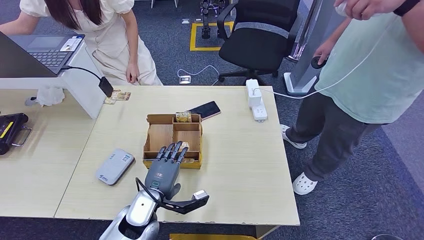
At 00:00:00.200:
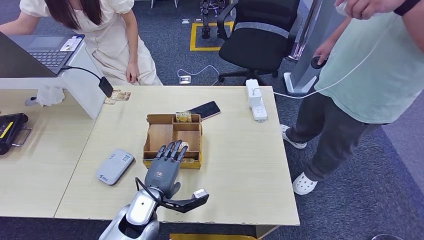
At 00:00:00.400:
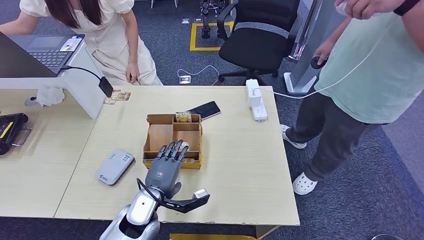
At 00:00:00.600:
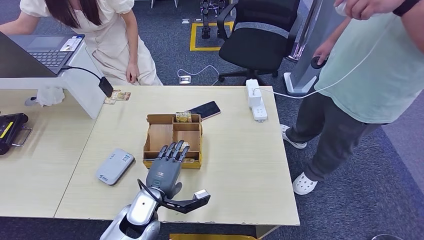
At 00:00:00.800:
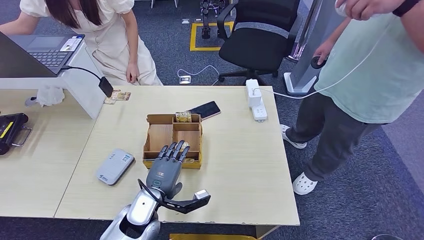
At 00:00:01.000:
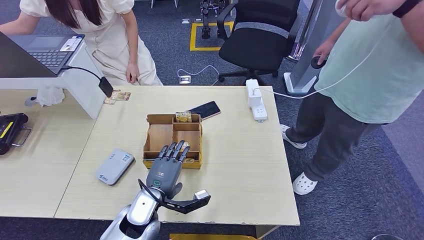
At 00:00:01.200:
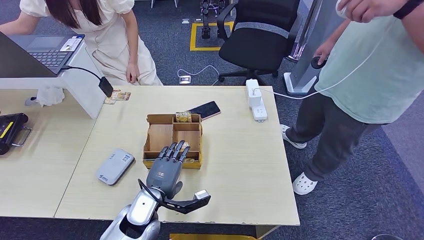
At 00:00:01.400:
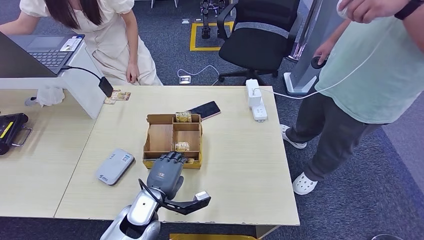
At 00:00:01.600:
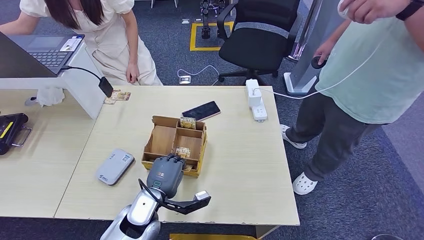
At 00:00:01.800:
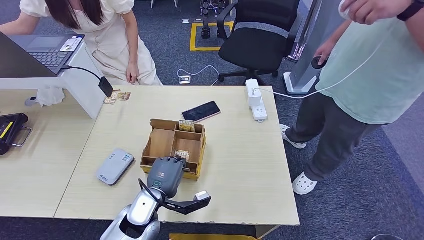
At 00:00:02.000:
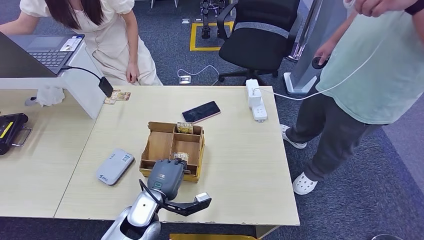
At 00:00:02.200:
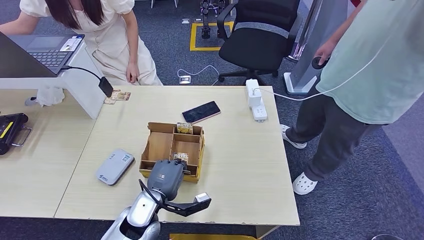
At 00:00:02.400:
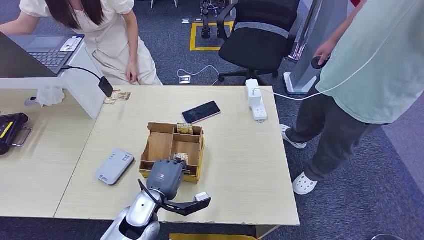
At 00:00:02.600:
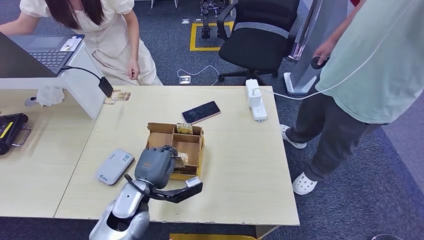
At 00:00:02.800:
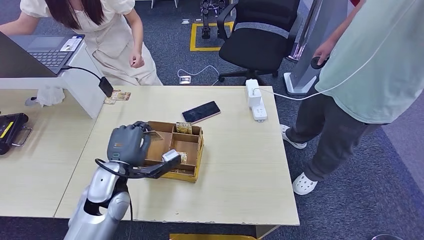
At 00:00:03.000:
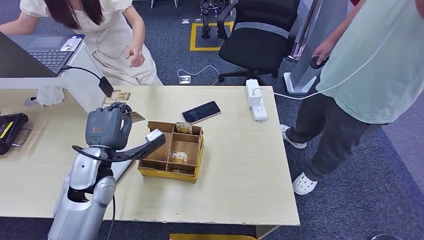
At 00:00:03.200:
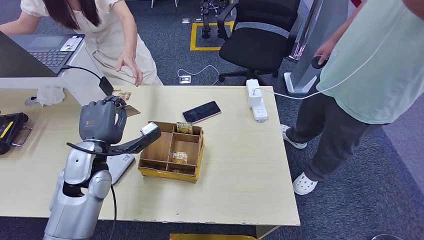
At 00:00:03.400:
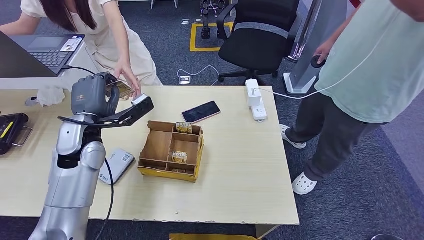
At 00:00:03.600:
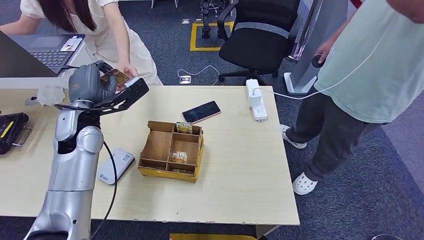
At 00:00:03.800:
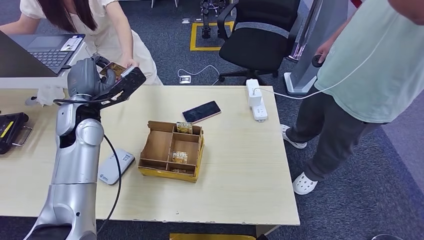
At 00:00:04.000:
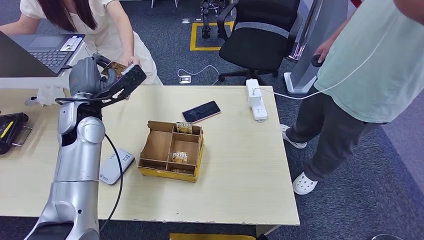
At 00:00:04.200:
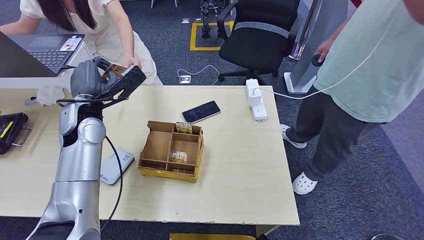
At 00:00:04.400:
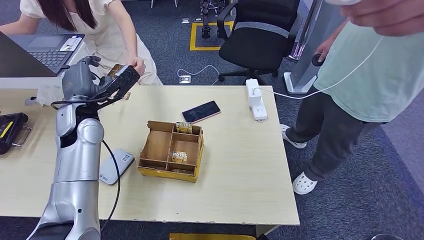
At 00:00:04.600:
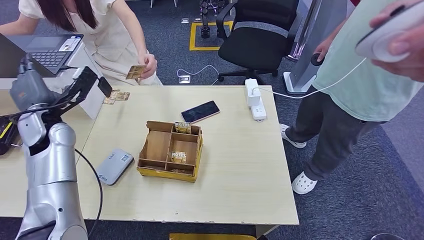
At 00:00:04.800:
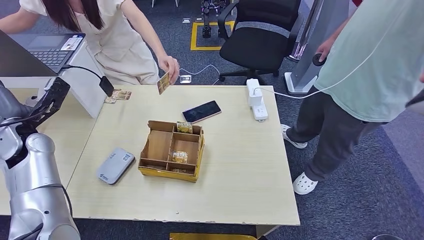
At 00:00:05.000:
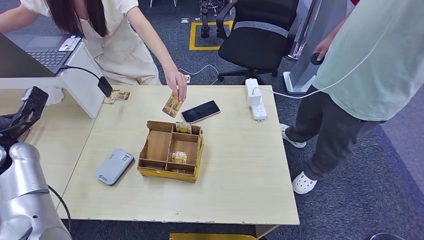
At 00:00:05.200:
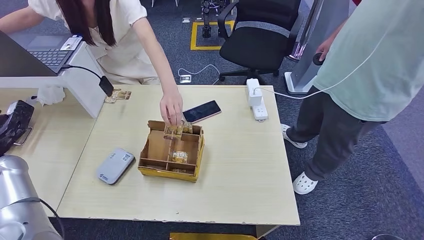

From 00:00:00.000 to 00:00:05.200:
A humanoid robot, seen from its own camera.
Step, from 00:00:00.000 to 00:00:03.200: Pick up the room key from the key card box.
Step, from 00:00:03.400 to 00:00:05.200: Hand the room key to the person.
From 00:00:00.000 to 00:00:01.800: Both hands stay put.
From 00:00:01.800 to 00:00:03.400: The left hand moves upward, to the left and forward, some 25 cm.

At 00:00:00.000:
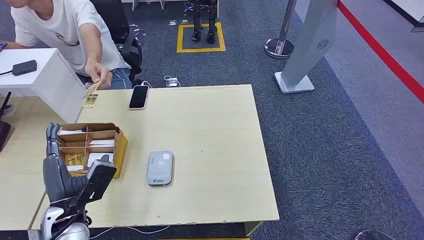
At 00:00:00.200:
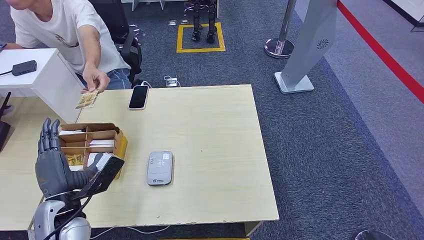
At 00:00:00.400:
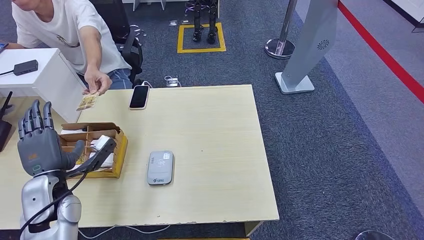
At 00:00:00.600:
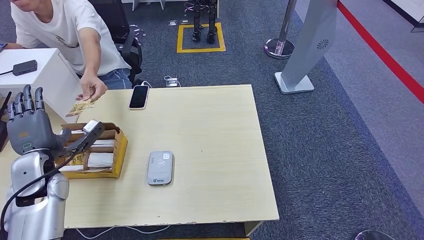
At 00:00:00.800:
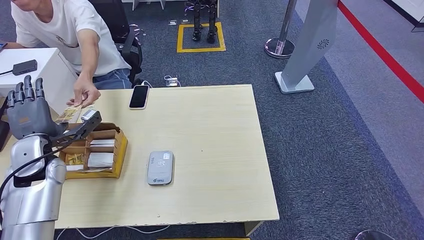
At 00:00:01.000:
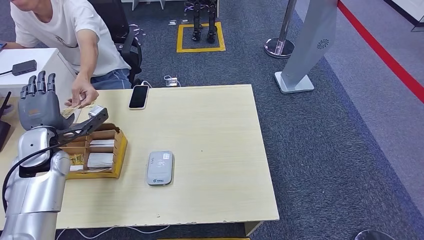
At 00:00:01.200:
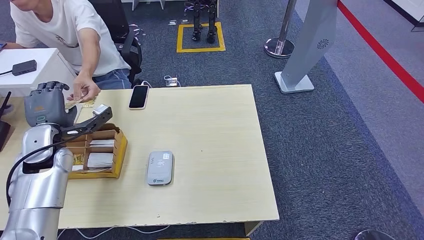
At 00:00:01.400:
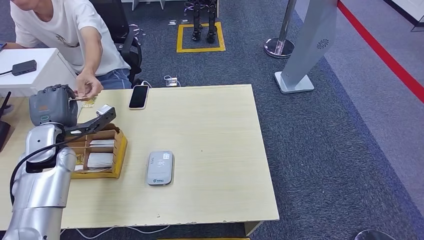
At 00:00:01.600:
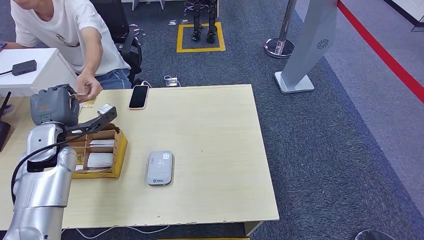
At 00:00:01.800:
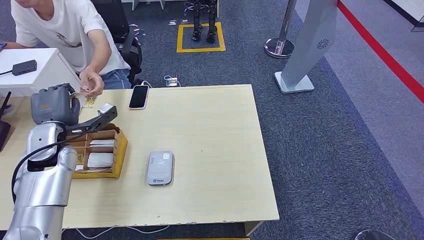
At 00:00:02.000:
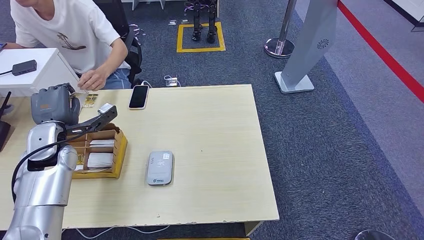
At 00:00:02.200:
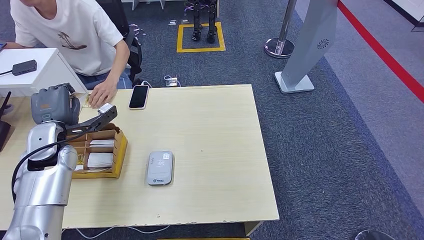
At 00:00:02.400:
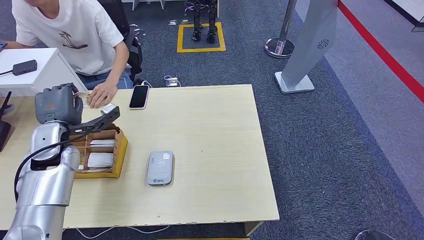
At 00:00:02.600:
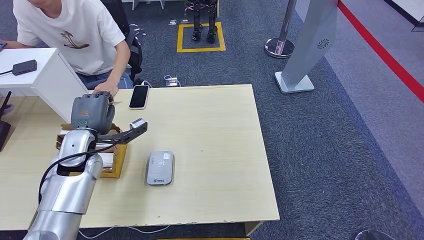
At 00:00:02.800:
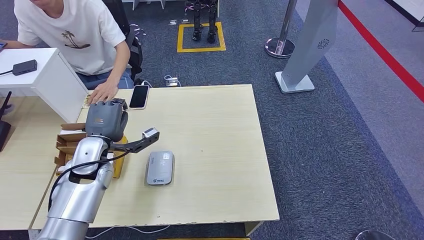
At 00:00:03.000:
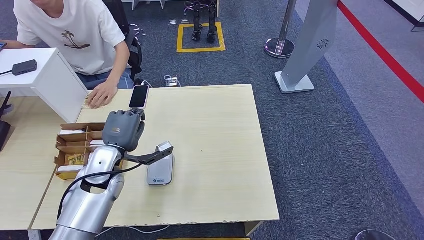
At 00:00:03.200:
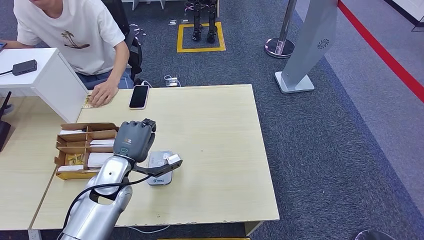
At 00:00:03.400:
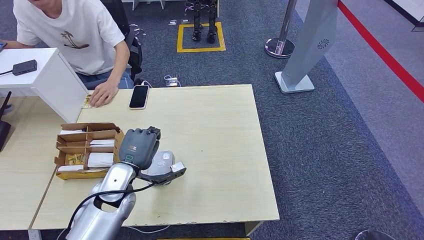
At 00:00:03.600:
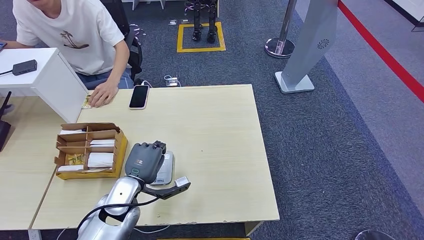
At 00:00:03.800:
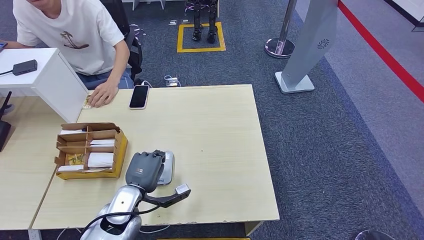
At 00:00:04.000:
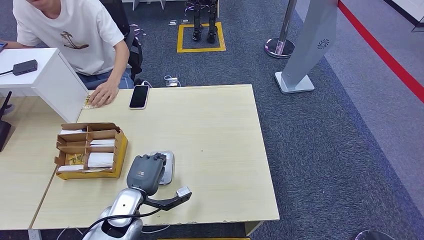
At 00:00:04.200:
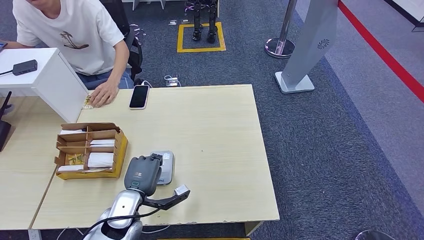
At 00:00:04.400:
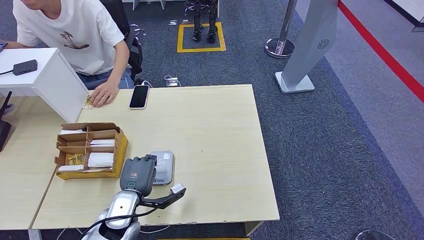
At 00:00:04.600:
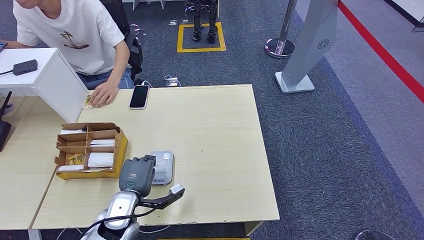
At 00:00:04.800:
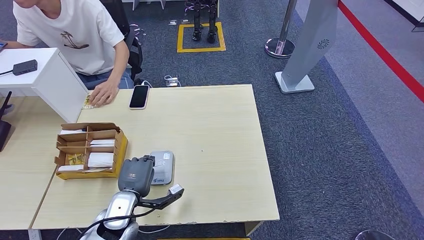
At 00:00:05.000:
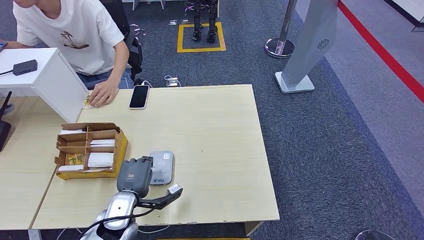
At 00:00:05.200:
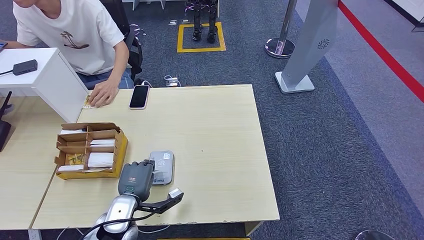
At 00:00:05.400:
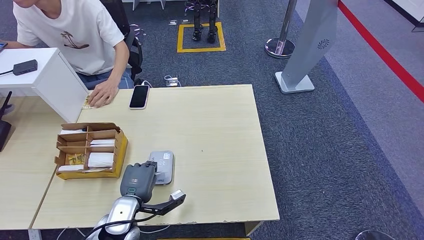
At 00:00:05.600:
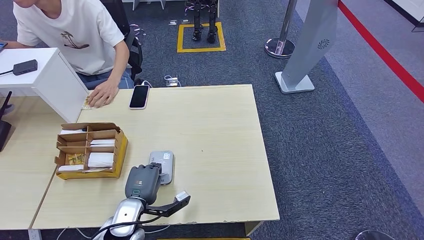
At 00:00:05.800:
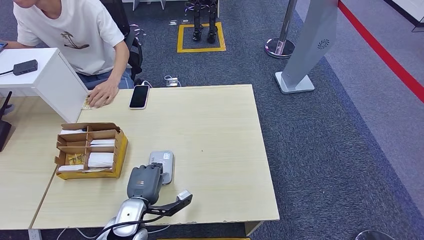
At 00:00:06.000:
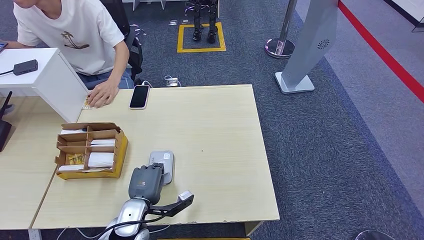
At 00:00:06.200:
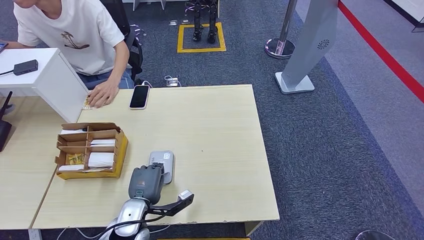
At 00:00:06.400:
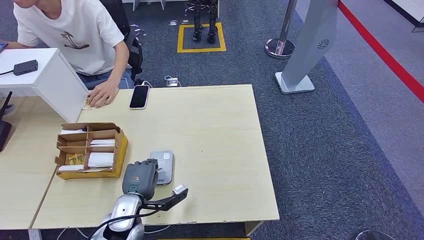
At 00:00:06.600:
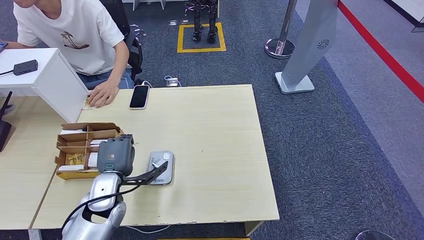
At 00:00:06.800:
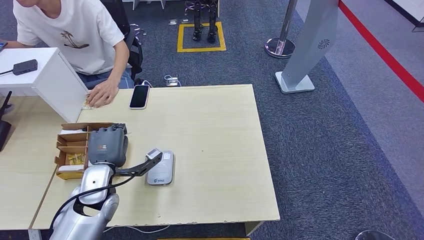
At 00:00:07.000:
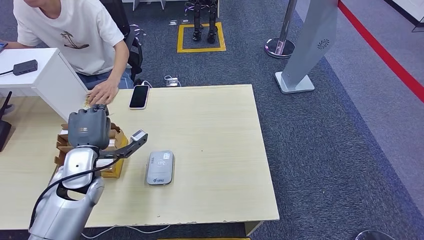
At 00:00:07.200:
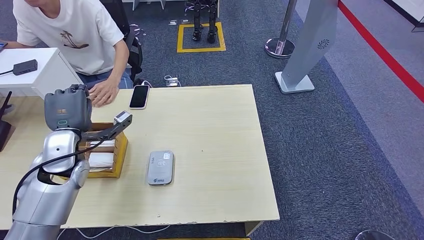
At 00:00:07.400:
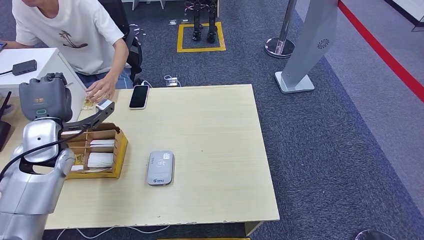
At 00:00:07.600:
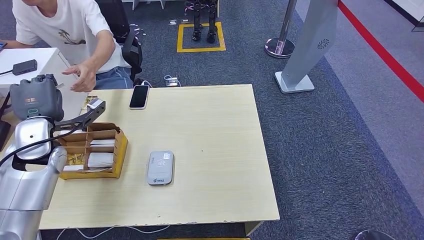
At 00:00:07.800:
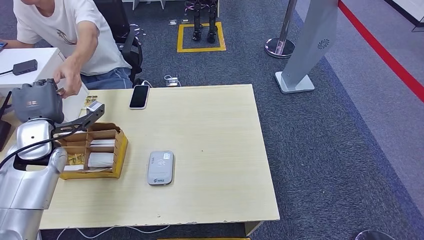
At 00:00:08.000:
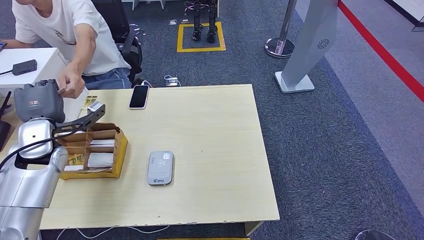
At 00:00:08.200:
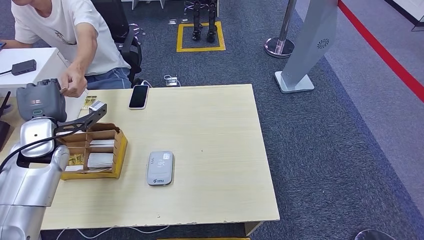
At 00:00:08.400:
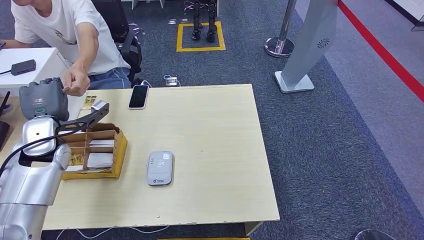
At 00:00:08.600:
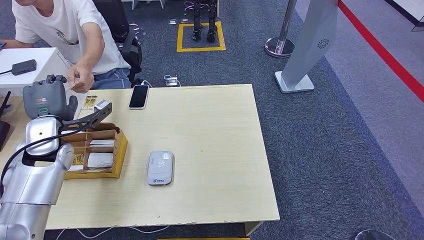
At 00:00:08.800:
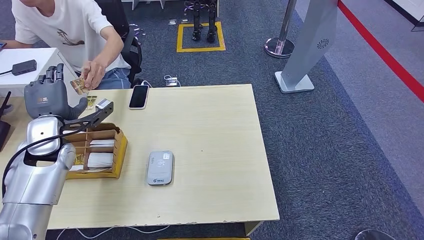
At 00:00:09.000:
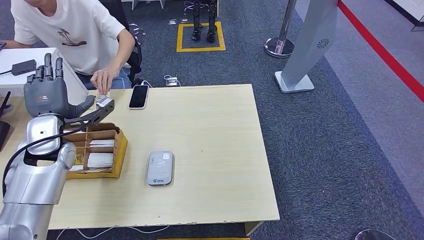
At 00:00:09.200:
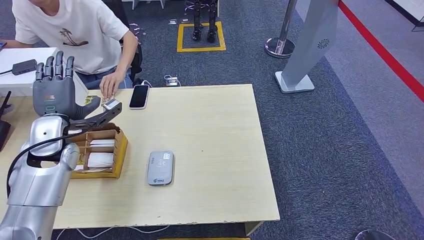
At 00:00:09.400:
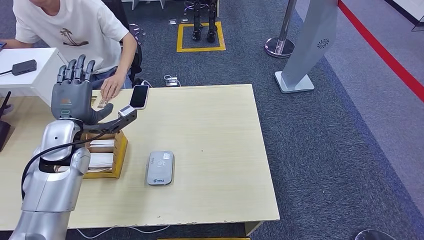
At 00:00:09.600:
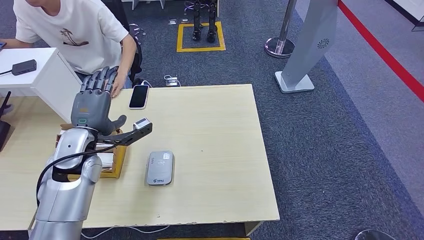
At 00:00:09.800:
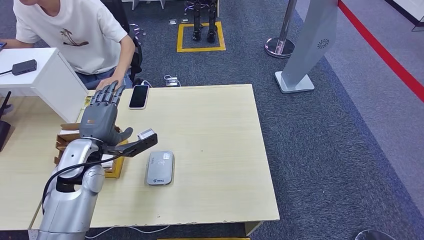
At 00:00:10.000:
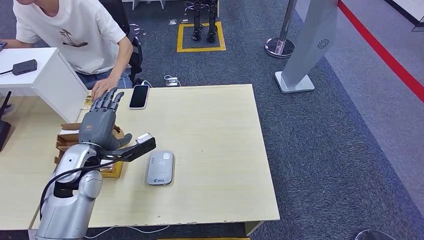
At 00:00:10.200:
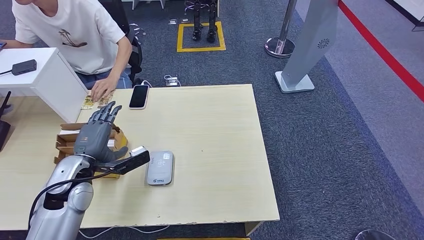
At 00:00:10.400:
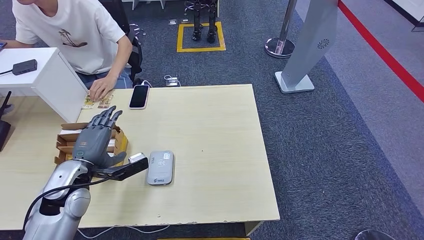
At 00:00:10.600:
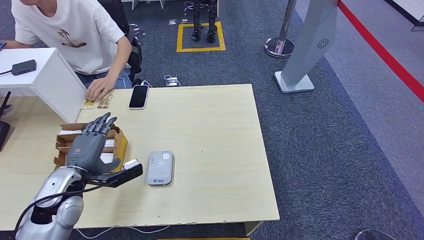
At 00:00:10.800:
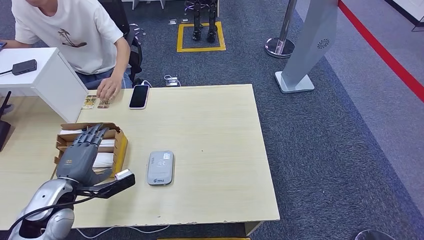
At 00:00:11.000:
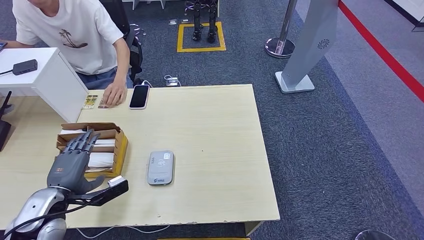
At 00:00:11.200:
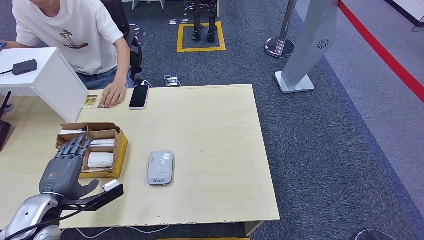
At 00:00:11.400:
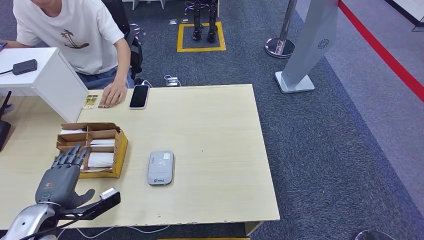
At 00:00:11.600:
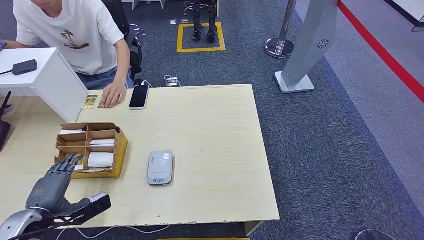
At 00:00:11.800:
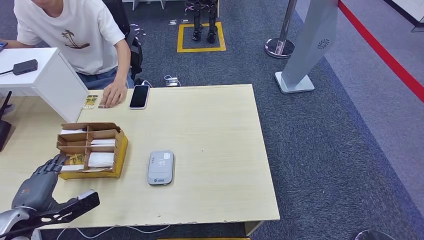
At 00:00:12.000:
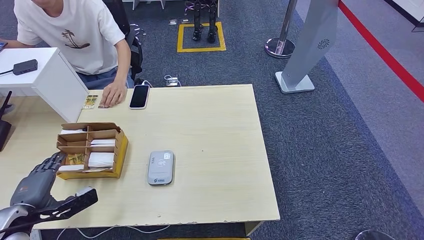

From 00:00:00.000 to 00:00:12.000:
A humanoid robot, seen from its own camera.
Step, from 00:00:00.000 to 00:00:02.200: Take the ID card from the person's hand.
Step, from 00:00:02.400 to 00:00:05.600: Place the ID card on the card reader.
Step, from 00:00:05.800 to 00:00:09.200: Hand the ID card to the person.
From 00:00:01.600 to 00:00:03.000: The left hand goes approximately 15 cm to the right and downward.
From 00:00:03.000 to 00:00:04.400: The left hand travels backward and downward by about 10 cm.
From 00:00:04.400 to 00:00:06.000: The hands stay close to where they were, moving slightly.
From 00:00:06.000 to 00:00:07.600: The left hand moves upward, to the left and forward, some 30 cm.
From 00:00:07.600 to 00:00:09.000: There are only small adjustments of the hands.
From 00:00:09.000 to 00:00:10.400: The left hand shifts about 10 cm backward and downward.
From 00:00:10.400 to 00:00:12.000: The left hand shifts roughly 15 cm to the left and backward.
